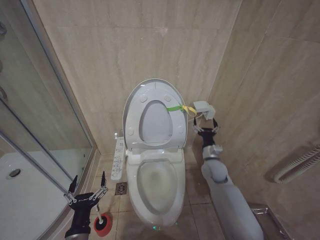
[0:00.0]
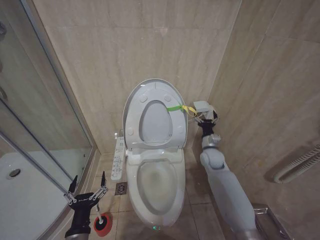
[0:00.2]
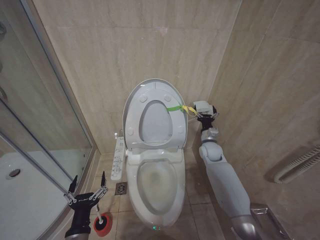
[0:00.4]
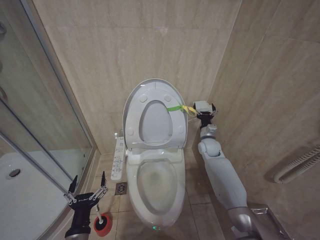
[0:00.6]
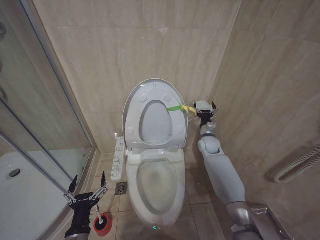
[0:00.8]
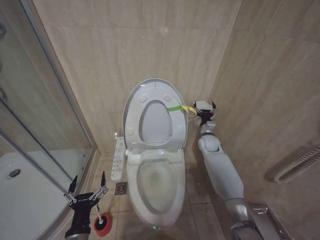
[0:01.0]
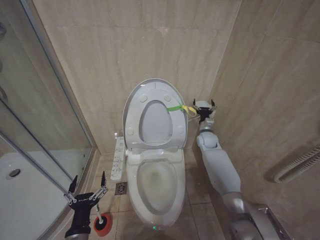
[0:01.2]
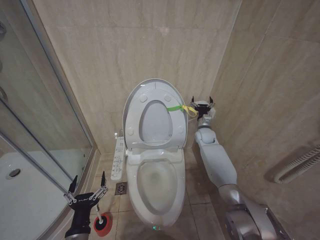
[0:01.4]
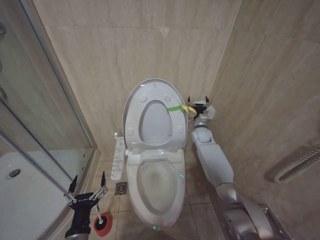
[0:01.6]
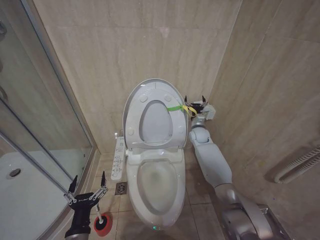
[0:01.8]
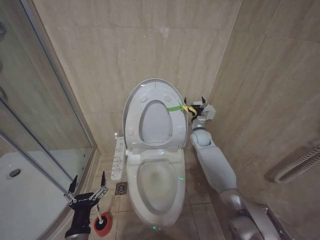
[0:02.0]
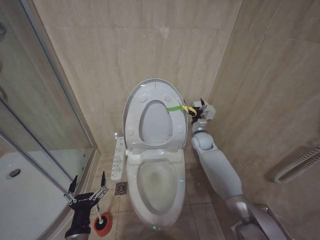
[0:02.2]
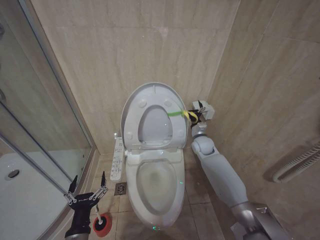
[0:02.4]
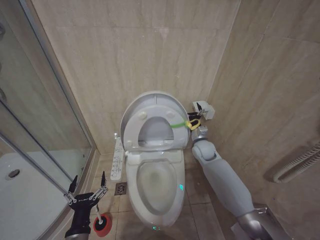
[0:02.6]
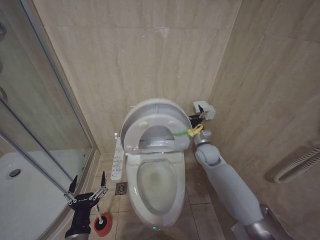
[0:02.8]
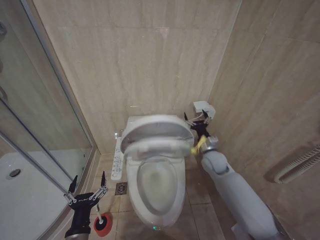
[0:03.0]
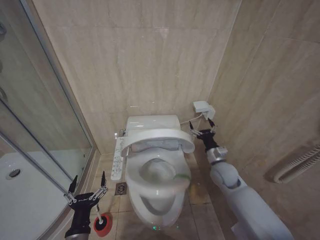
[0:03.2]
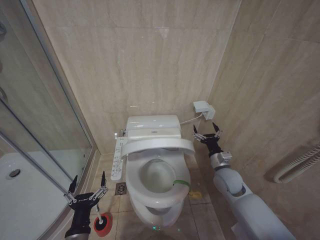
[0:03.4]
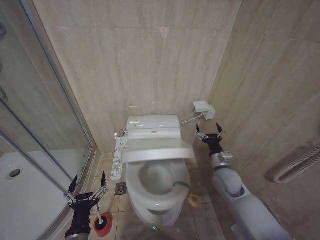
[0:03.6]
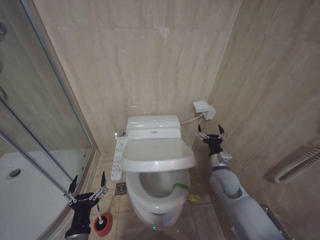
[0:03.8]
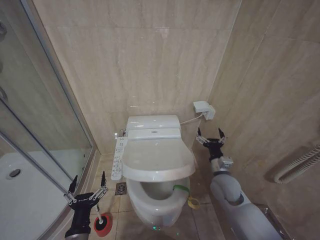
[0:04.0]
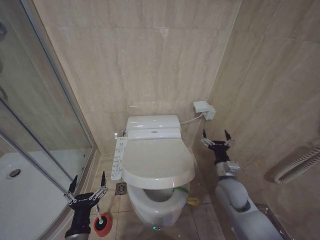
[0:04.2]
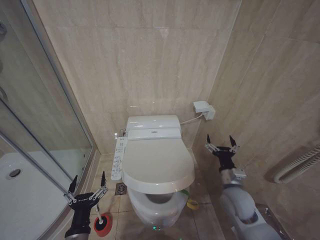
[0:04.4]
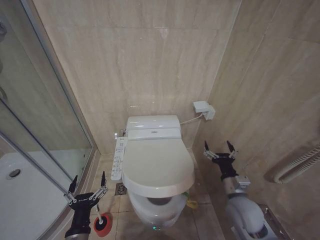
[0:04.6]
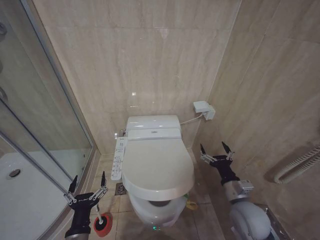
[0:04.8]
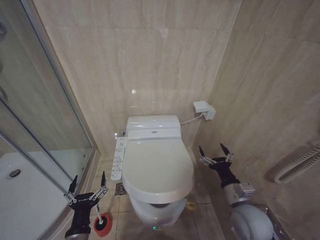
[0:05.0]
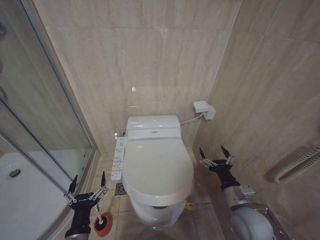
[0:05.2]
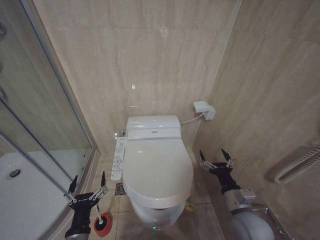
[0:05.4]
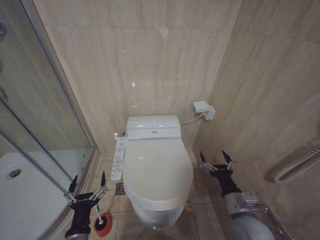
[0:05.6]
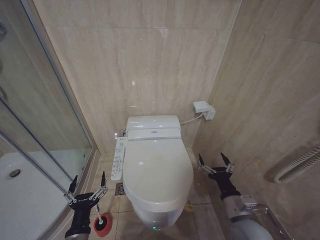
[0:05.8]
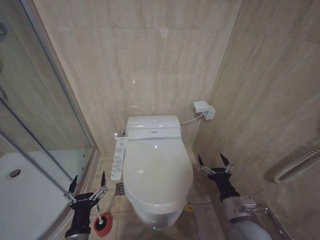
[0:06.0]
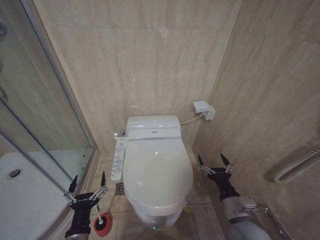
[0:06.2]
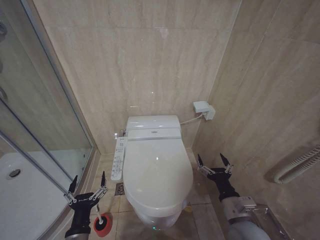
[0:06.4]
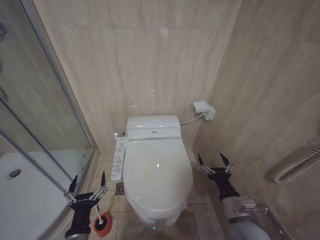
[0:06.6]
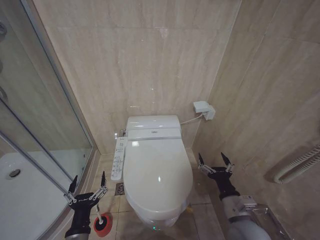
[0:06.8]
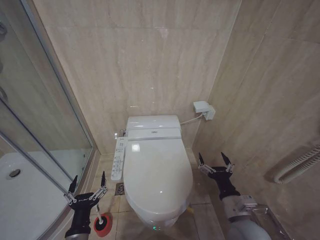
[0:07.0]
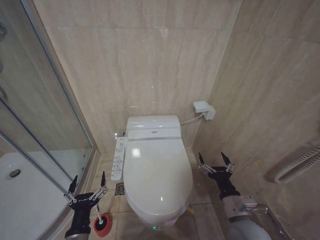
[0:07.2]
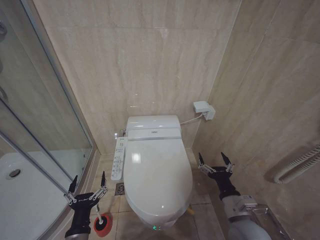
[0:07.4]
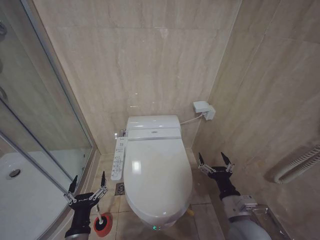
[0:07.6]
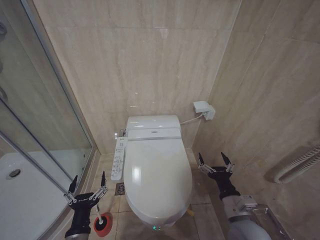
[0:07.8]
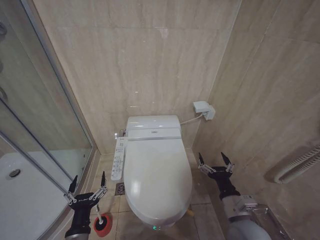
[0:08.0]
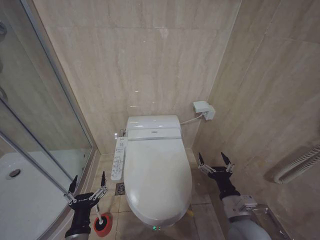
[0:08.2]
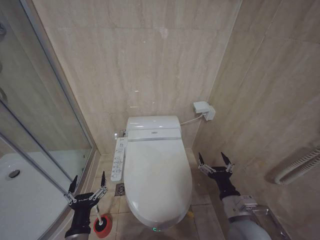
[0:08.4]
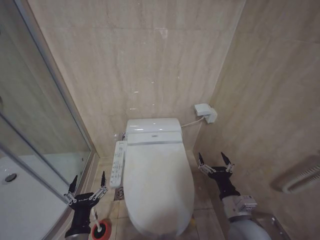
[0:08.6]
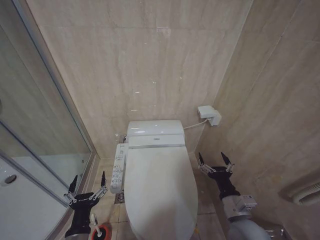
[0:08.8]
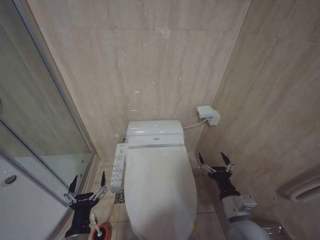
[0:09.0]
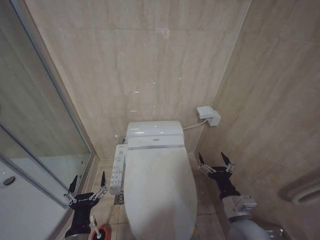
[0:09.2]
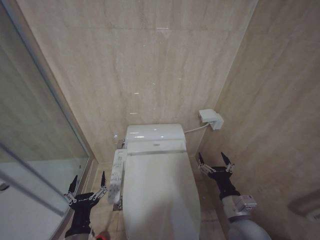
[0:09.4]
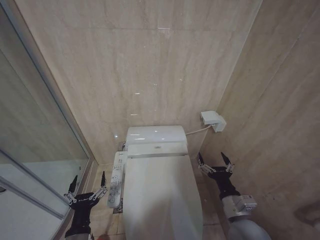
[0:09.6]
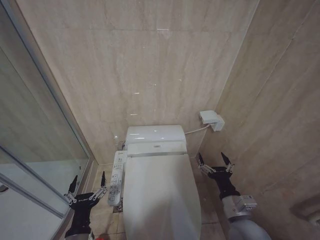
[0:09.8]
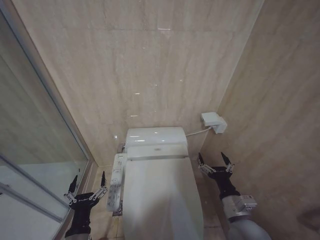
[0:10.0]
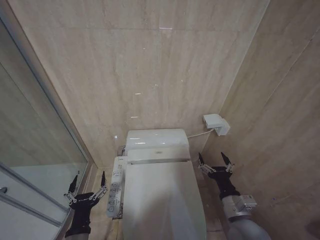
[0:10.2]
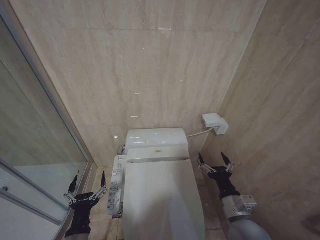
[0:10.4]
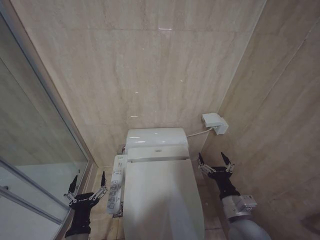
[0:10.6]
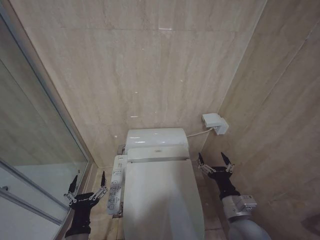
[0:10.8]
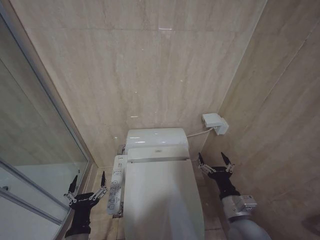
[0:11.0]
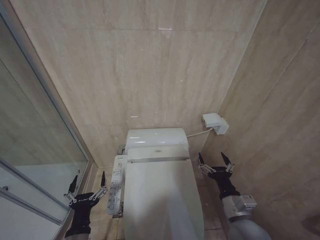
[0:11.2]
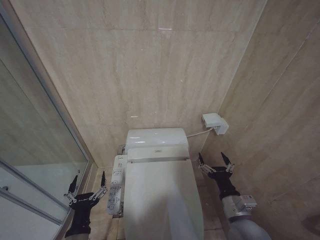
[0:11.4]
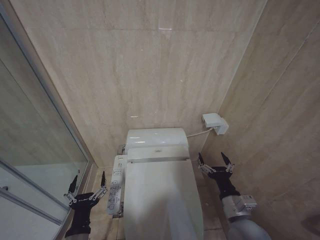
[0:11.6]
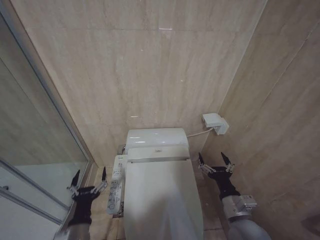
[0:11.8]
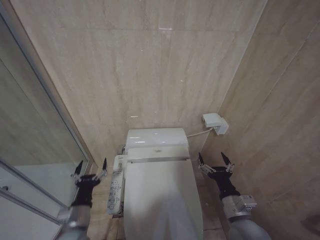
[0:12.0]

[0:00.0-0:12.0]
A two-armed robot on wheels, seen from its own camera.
Task of the whole recording: Open the toilet lid, clean the toilet bowl with a toilet brush, close the toilet lid, and flush.
0:00.0 to 0:01.6: The right gripper heads forward, covering about 15 cm.
0:01.6 to 0:03.0: The right gripper travels backward by roughly 15 cm.
0:03.0 to 0:04.4: The right gripper shifts roughly 15 cm backward.
0:04.4 to 0:06.0: The right gripper heads backward, covering some 10 cm.
0:06.0 to 0:10.4: The two grippers keep their place.
0:10.4 to 0:12.0: The left gripper is displaced forward by roughly 5 cm.

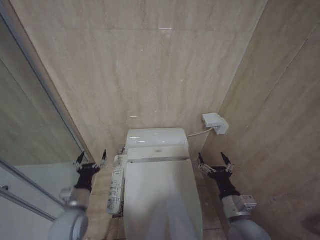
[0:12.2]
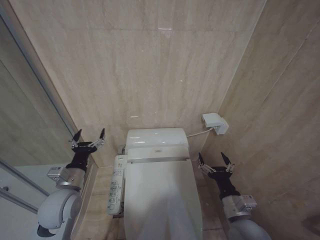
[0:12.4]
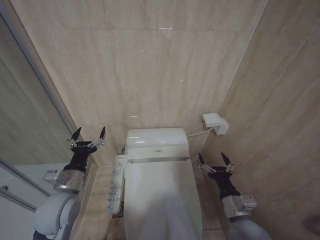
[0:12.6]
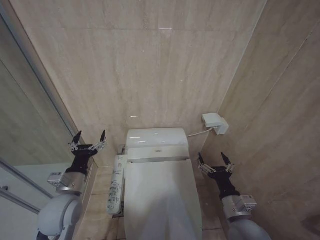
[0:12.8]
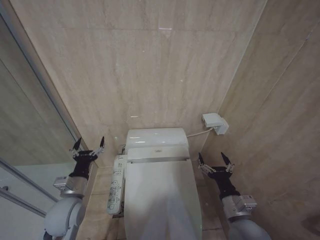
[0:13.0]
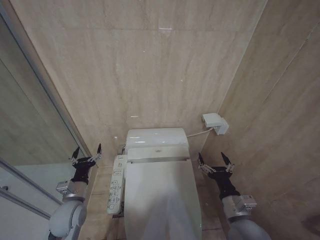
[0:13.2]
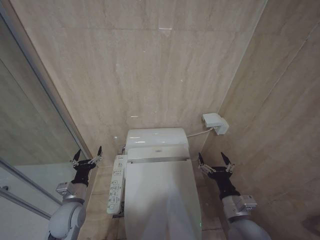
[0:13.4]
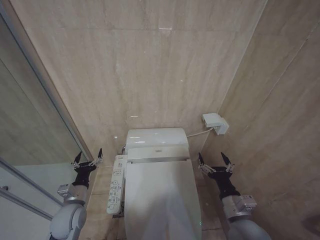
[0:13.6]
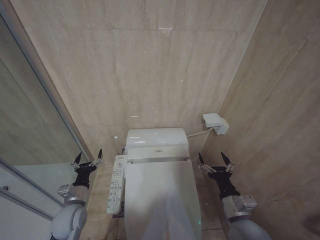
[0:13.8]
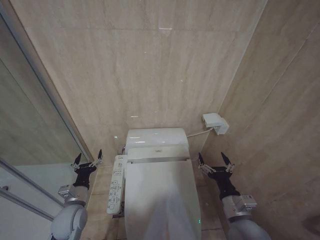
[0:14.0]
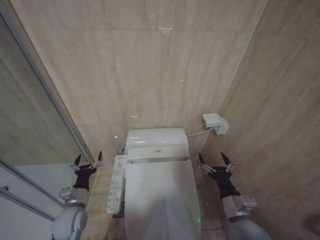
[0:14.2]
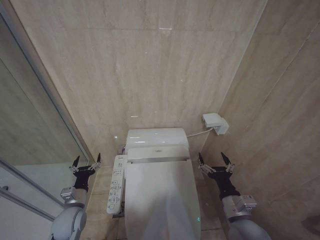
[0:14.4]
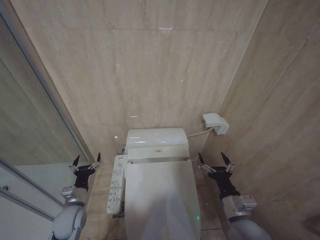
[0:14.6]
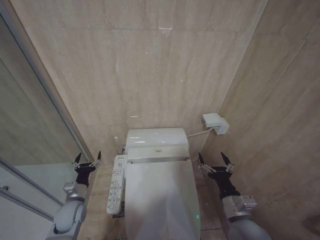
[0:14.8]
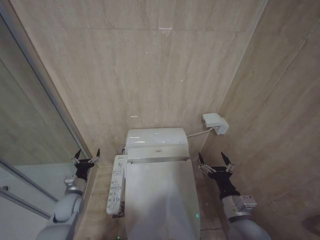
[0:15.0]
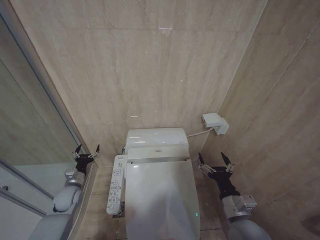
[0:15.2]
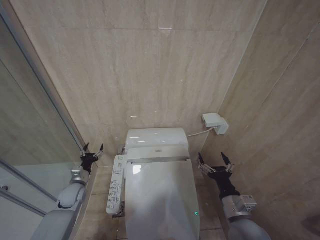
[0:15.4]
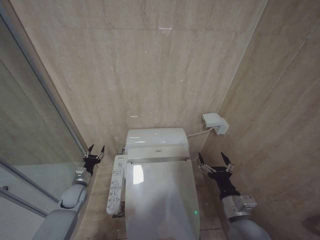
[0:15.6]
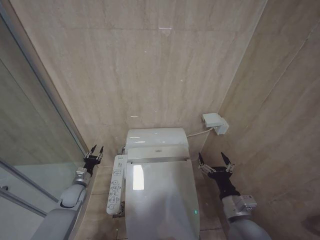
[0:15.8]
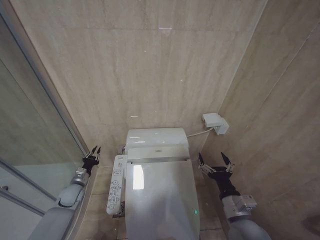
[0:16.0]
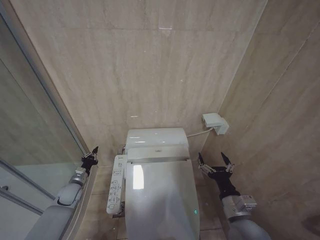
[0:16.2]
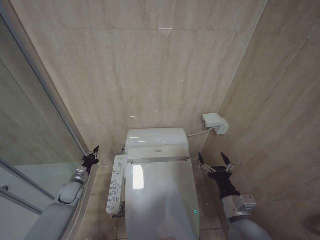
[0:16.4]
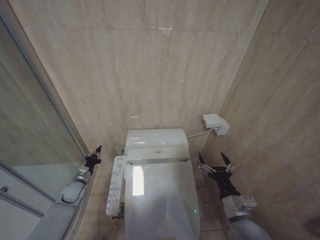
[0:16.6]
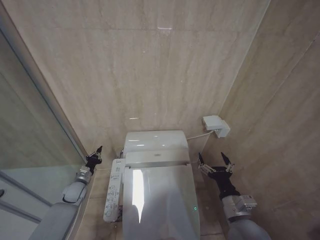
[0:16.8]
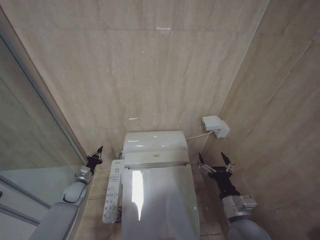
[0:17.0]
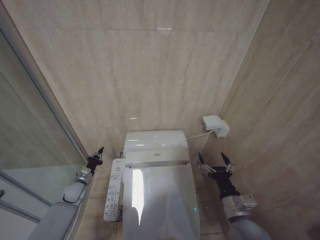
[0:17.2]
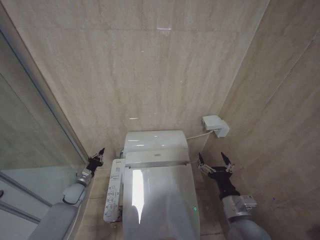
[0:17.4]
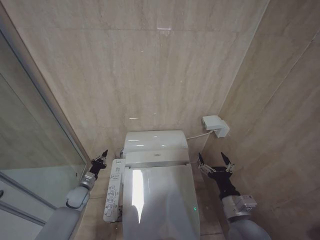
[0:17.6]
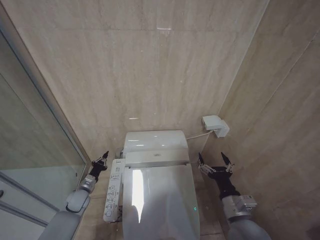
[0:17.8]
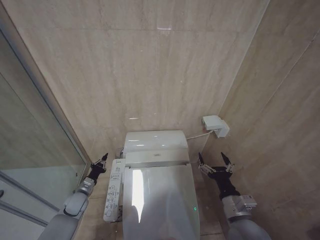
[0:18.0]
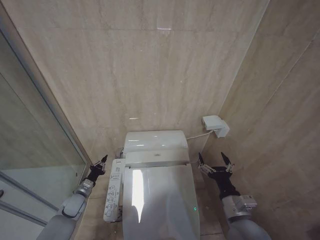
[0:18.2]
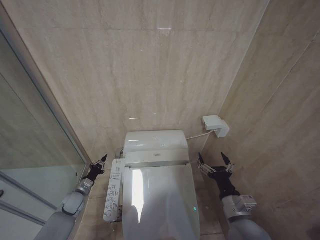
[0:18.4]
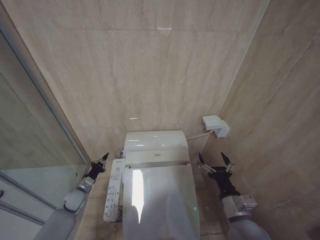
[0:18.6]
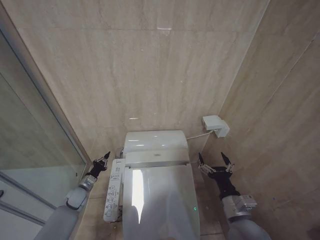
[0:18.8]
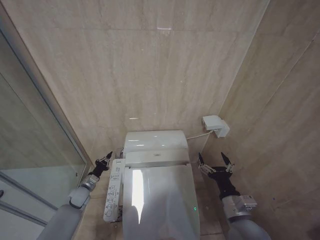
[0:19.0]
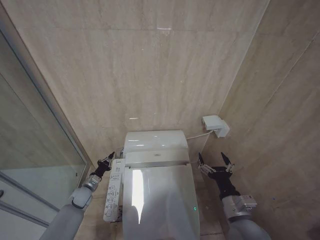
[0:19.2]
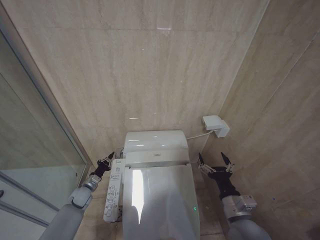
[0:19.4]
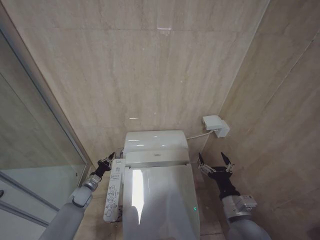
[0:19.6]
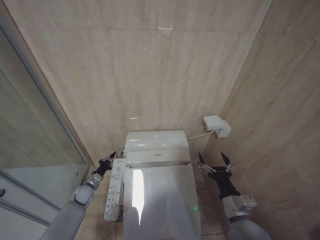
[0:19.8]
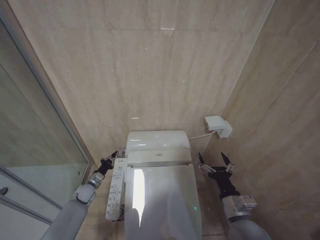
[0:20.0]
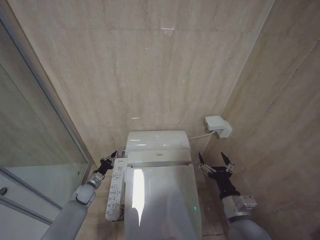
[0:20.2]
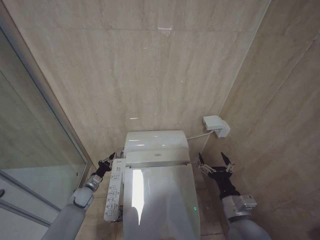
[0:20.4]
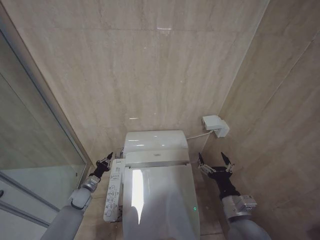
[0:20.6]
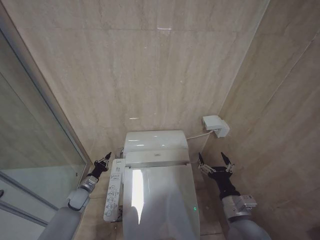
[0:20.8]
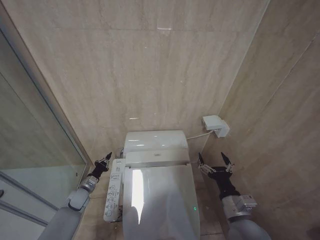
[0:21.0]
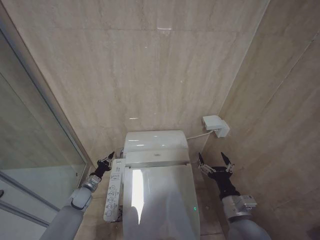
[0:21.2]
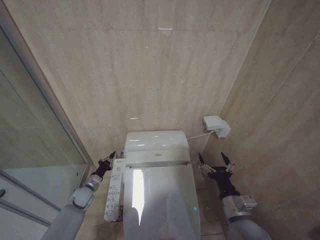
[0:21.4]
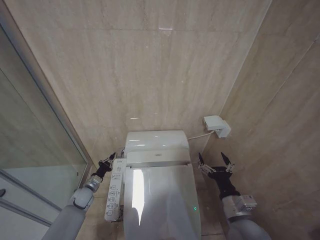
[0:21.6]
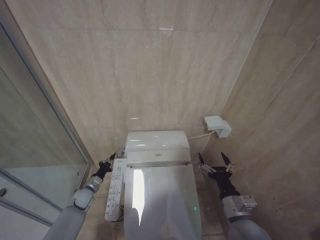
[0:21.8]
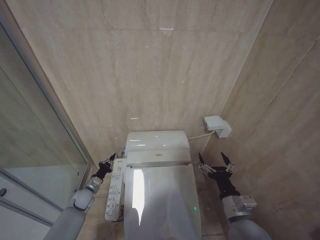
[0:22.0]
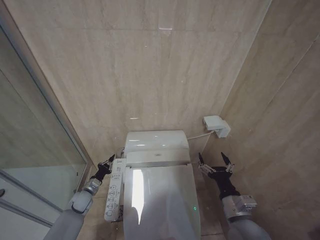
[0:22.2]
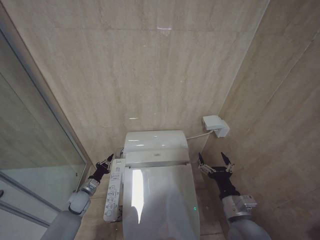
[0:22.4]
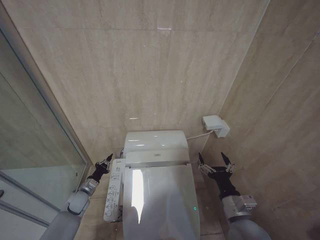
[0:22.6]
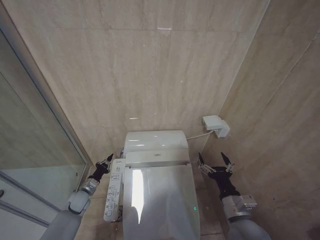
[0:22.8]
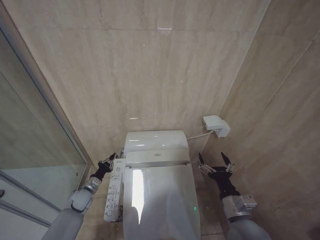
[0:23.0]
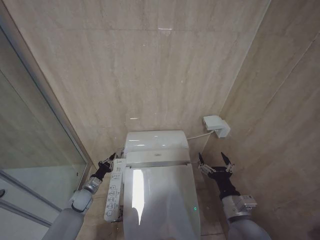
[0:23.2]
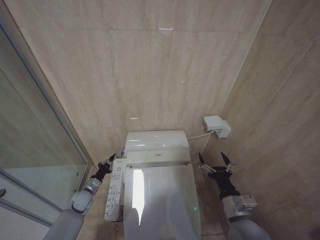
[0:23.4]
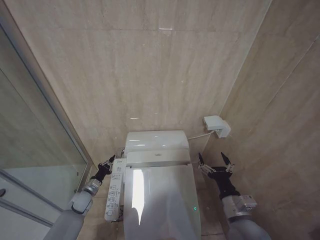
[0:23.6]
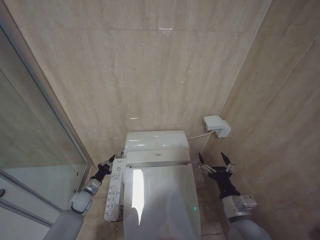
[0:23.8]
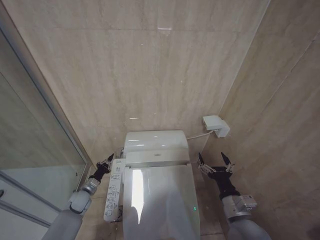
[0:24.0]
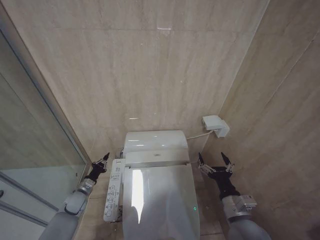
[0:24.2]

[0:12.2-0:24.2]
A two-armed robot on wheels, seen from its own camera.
Task of the whole recording: Open the toilet lid, clean the toilet bowl with a toilet brush, close the toilet lid, and flush.
0:12.2 to 0:13.8: The left gripper reaches some 10 cm upward, then returns.
0:13.8 to 0:15.2: The left gripper shifts approximately 10 cm forward and to the left.
0:15.2 to 0:16.6: The left gripper shifts by approximately 5 cm, and closes up.
0:16.6 to 0:18.2: The left gripper moves some 5 cm.
0:18.2 to 0:19.8: The left gripper moves roughly 5 cm.
0:19.8 to 0:21.2: The grippers move only a little.
